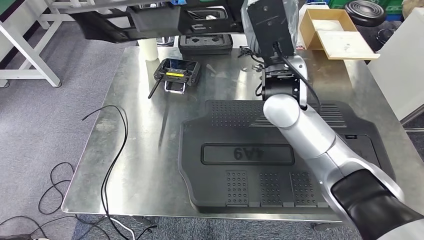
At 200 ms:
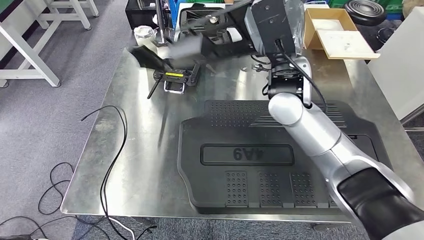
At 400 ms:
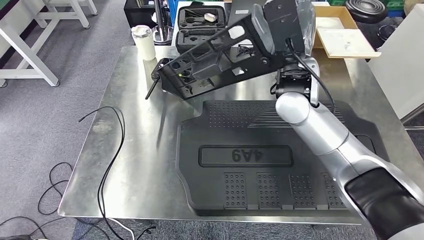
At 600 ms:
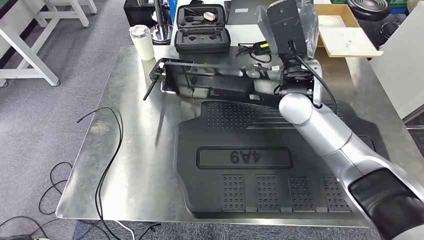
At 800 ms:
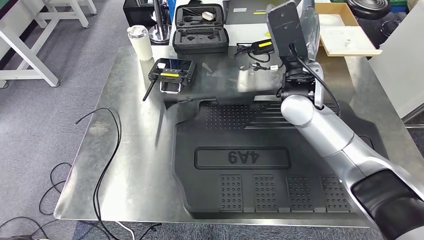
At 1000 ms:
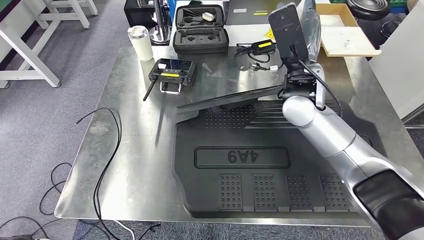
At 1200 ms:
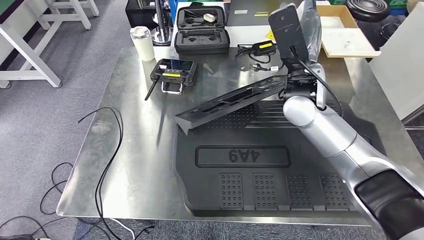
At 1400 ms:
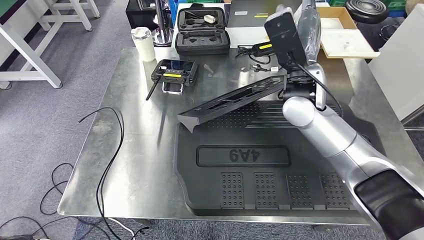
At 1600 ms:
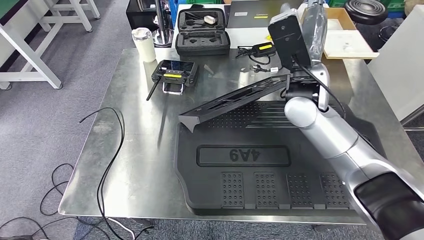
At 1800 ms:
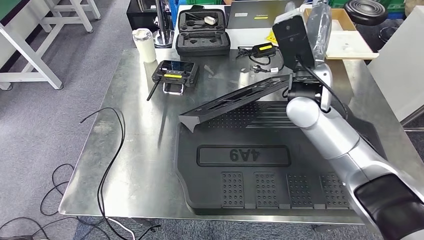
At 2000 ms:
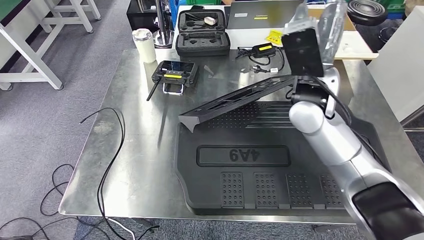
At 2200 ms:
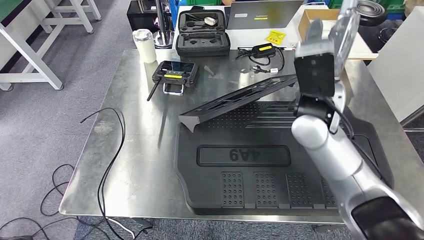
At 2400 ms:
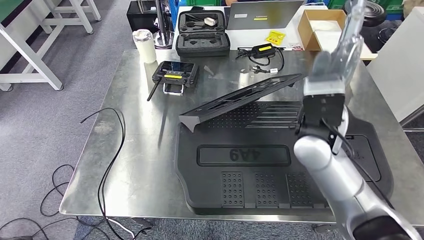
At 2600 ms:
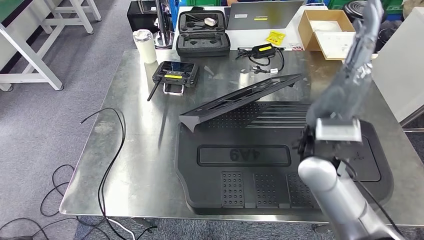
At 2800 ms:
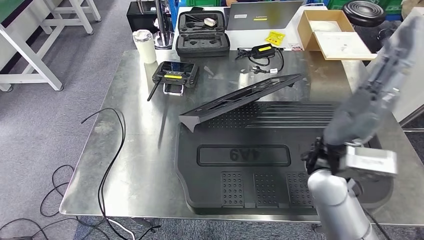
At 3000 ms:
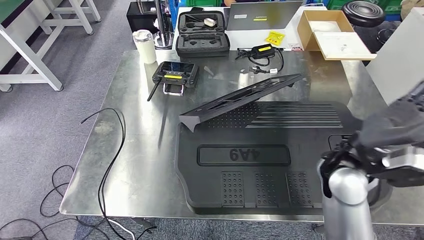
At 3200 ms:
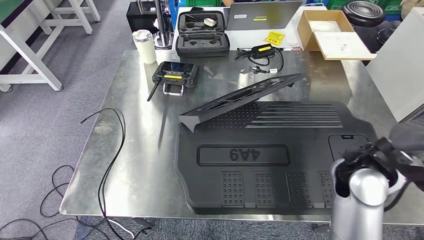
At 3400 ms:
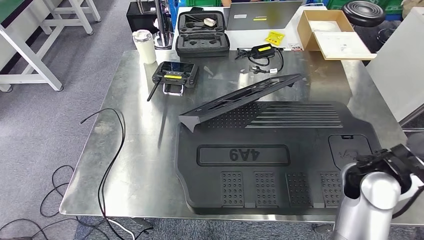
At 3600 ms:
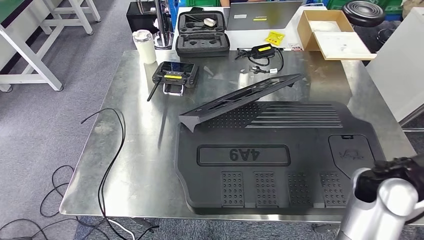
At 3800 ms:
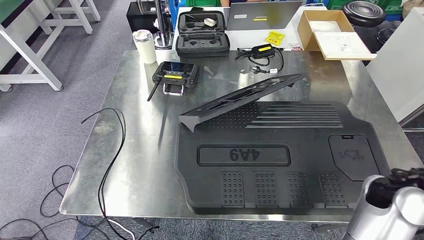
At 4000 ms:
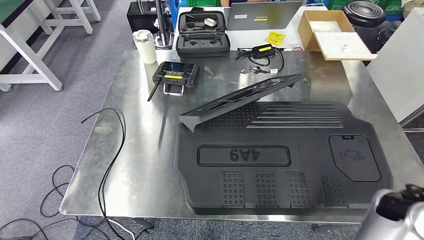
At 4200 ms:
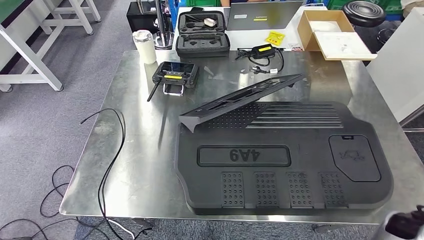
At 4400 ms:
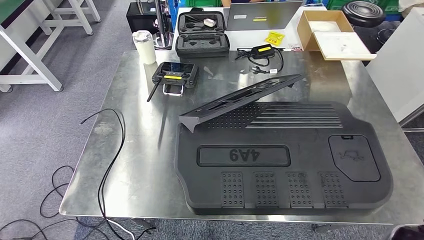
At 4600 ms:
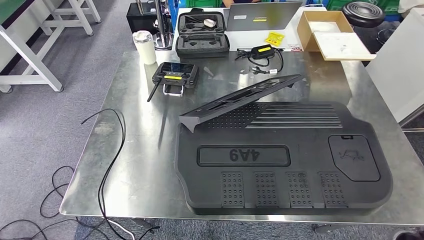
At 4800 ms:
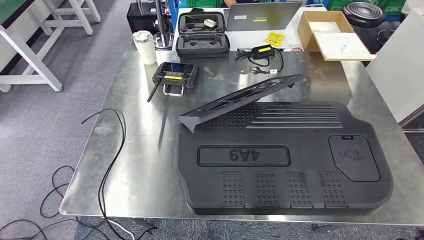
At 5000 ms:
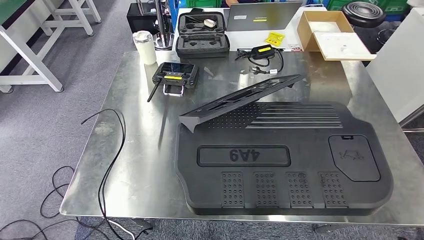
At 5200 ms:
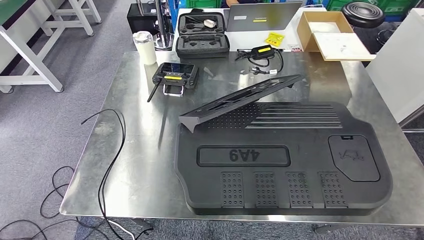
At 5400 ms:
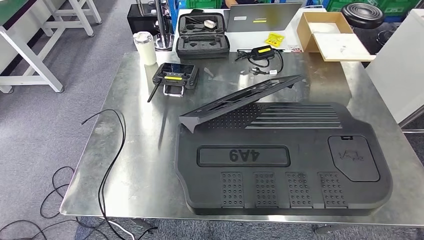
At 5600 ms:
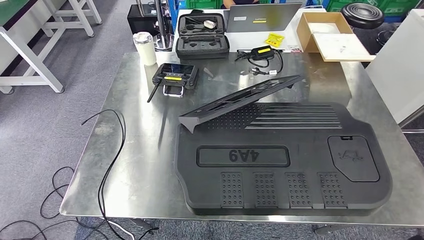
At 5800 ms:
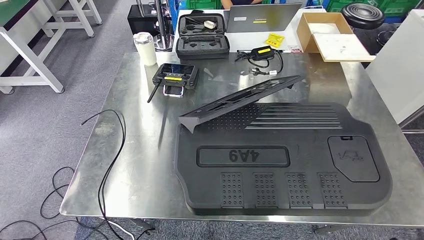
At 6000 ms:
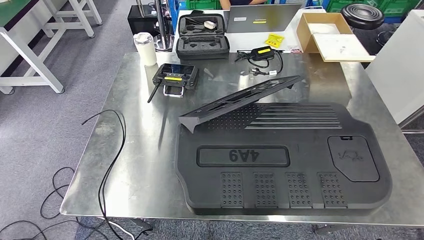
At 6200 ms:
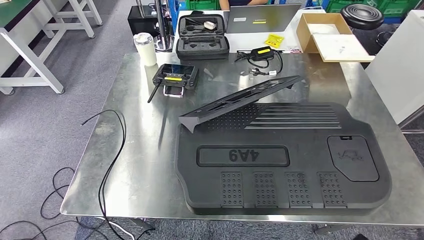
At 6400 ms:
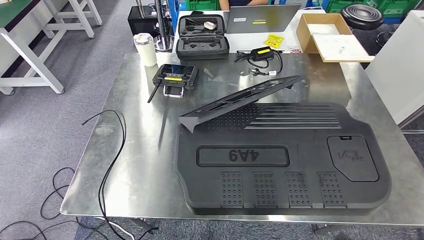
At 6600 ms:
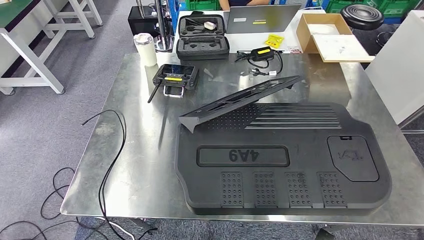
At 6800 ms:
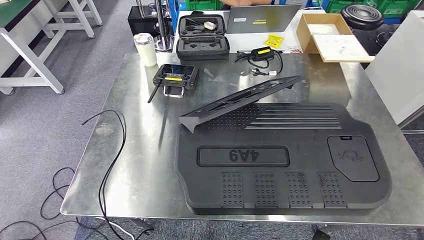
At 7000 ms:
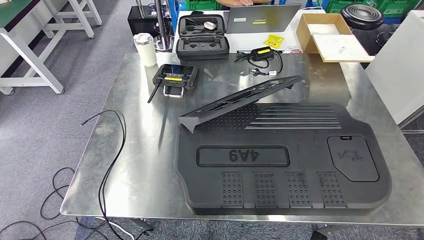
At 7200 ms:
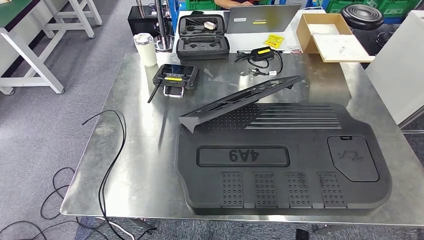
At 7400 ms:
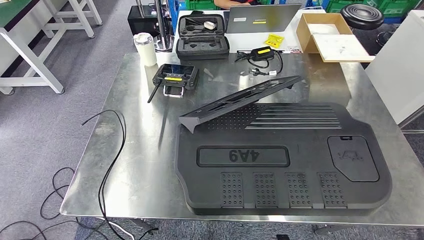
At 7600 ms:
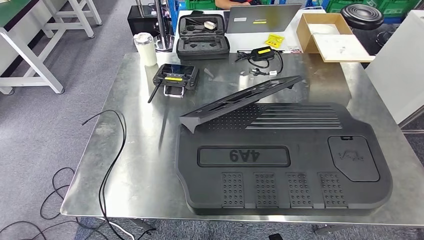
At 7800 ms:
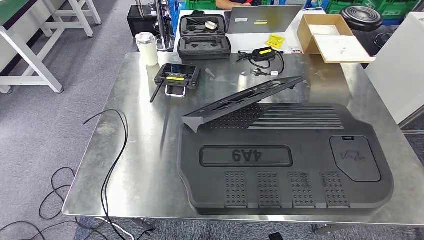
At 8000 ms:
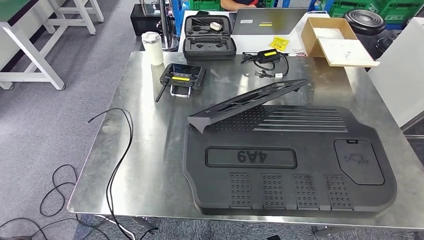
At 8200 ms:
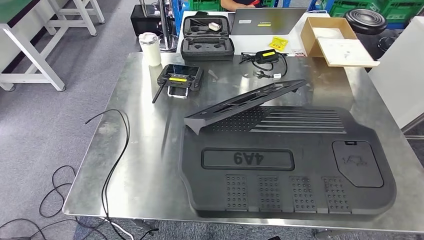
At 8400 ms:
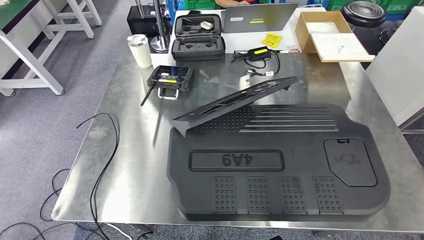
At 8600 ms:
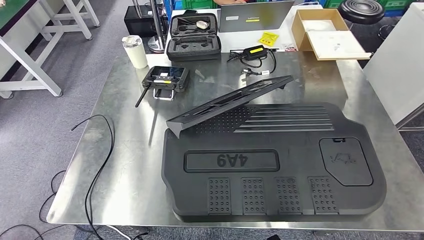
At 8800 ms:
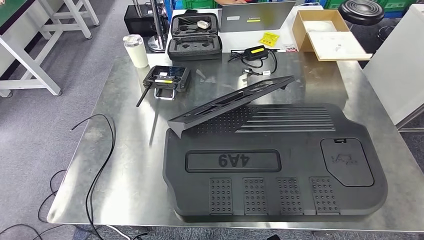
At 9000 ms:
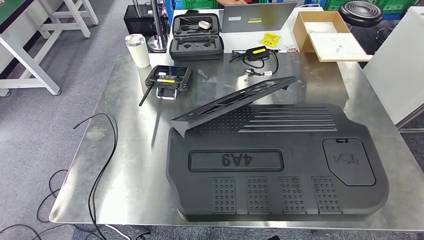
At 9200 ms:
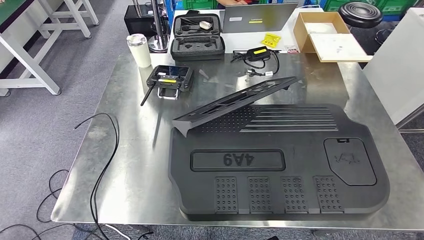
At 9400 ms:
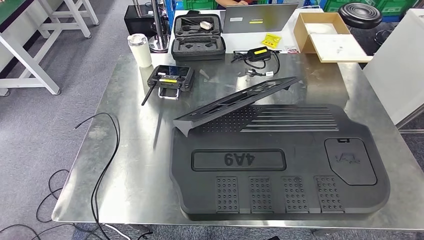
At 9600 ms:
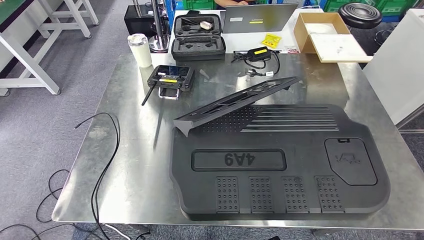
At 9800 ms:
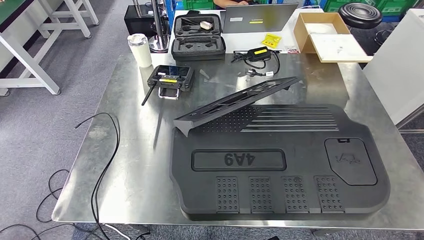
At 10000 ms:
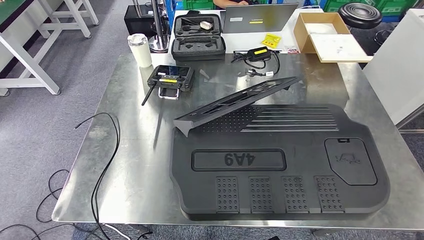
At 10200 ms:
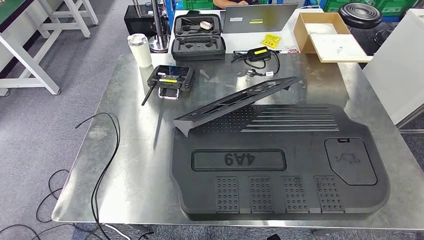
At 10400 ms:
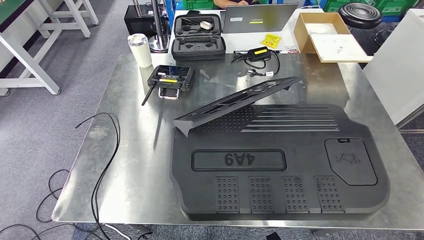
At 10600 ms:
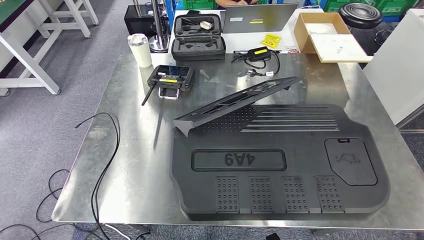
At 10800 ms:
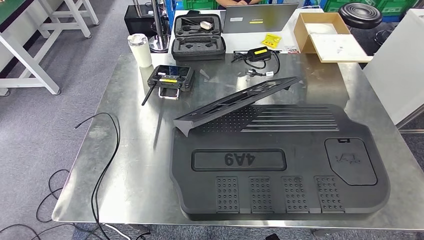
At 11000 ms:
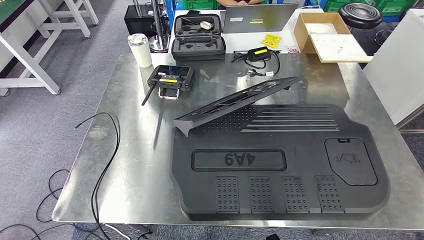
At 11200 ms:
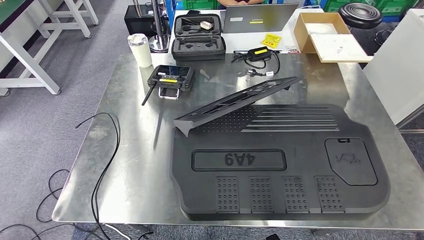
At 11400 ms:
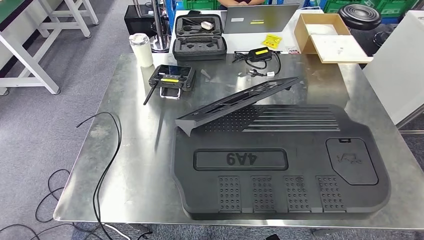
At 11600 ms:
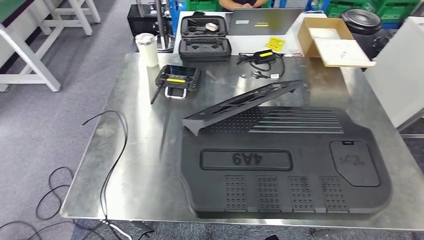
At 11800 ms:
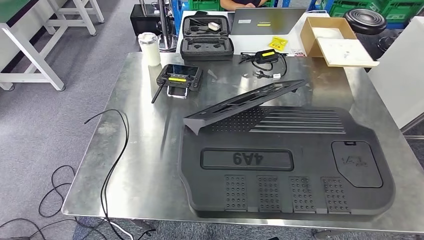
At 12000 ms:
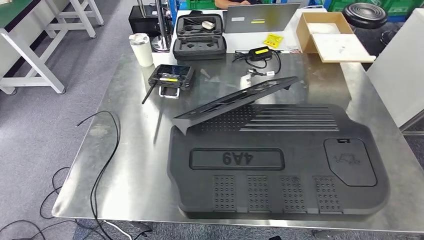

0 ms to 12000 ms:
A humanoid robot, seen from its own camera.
3000 ms to 4400 ms: The right hand is displaced to the right, backward and downward by about 25 cm.
4400 ms to 6000 ms: The right hand is displaced downward and to the left by some 25 cm.
6000 ms to 7600 ms: The right hand travels to the left and downward by about 10 cm.
9000 ms to 12000 ms: The hands move only a little.

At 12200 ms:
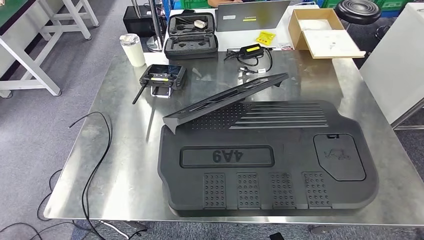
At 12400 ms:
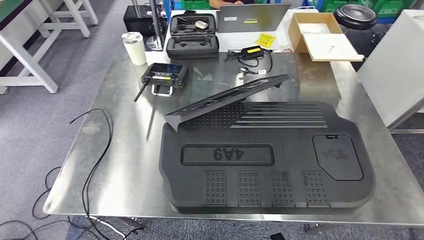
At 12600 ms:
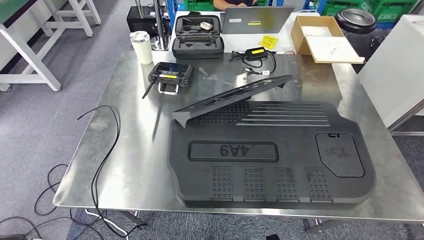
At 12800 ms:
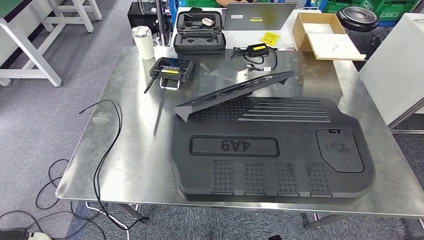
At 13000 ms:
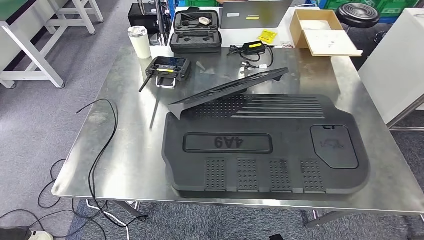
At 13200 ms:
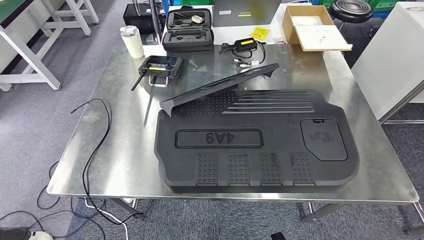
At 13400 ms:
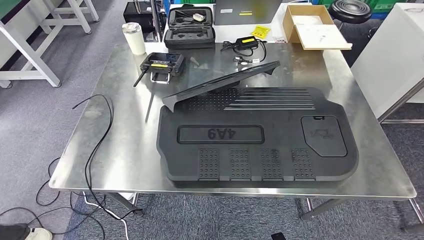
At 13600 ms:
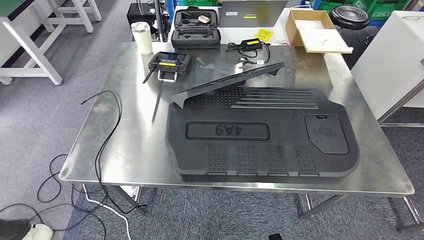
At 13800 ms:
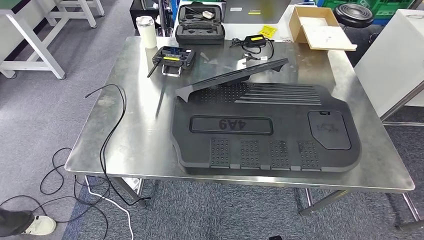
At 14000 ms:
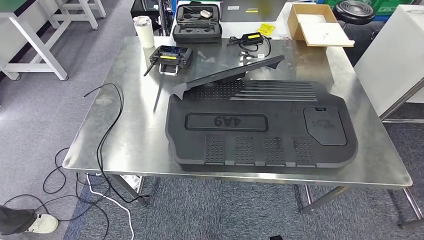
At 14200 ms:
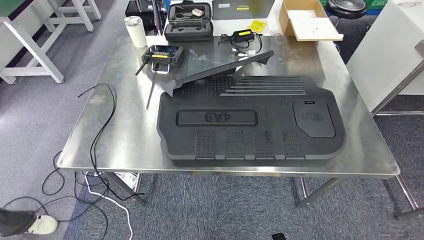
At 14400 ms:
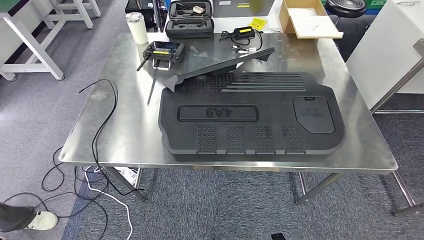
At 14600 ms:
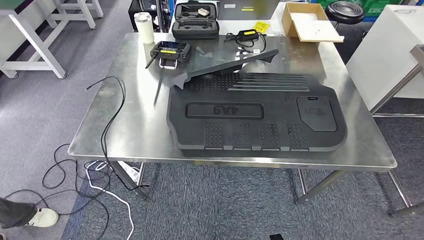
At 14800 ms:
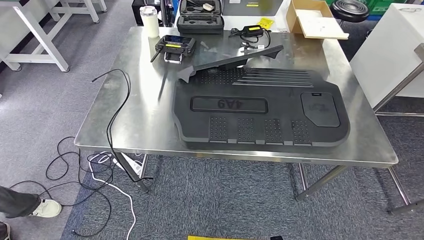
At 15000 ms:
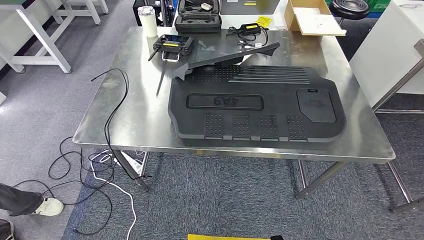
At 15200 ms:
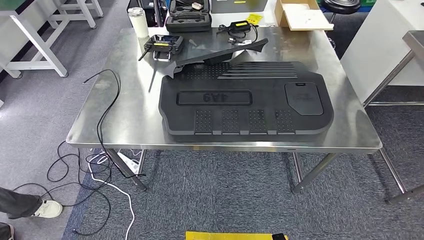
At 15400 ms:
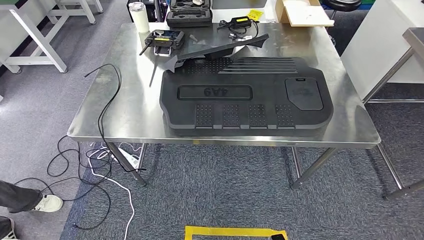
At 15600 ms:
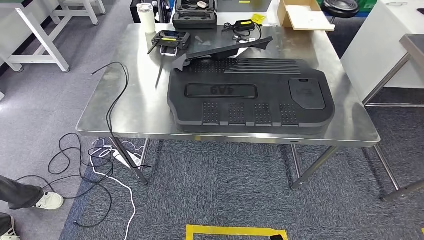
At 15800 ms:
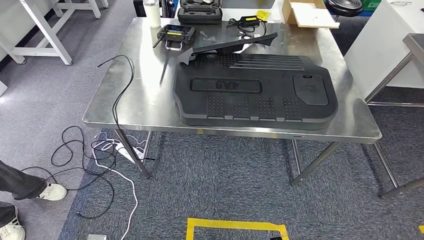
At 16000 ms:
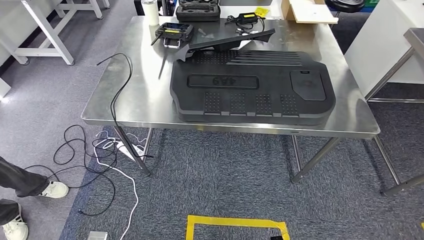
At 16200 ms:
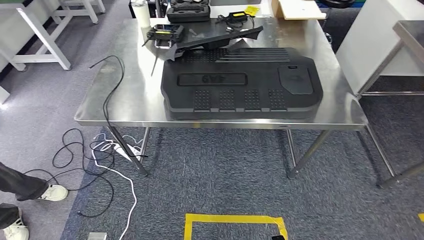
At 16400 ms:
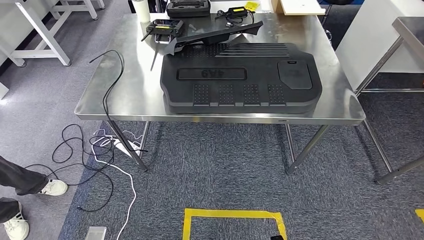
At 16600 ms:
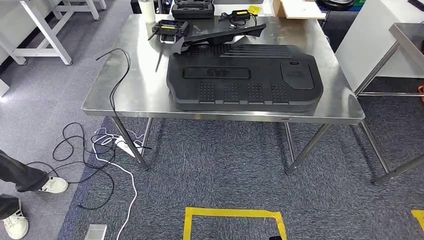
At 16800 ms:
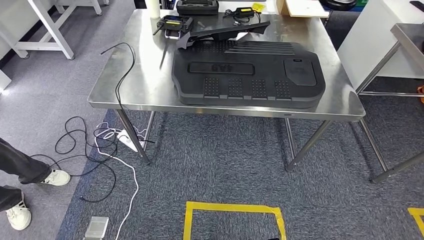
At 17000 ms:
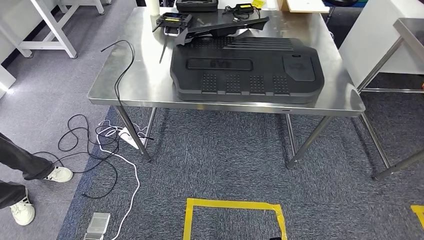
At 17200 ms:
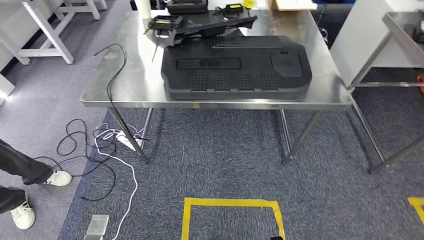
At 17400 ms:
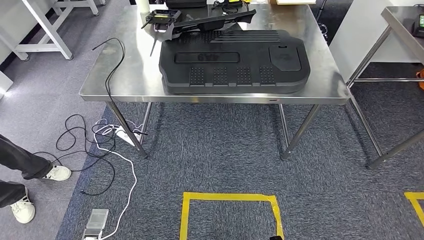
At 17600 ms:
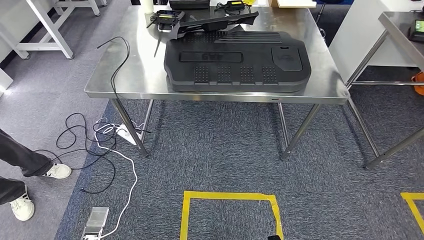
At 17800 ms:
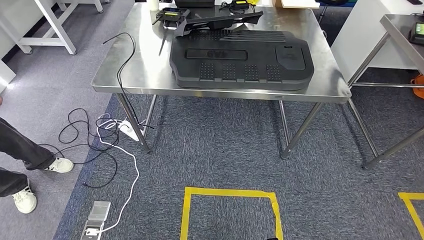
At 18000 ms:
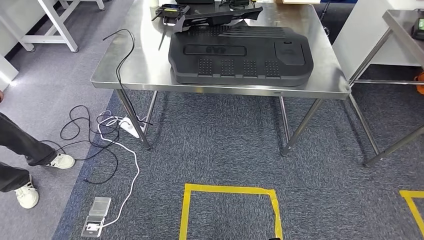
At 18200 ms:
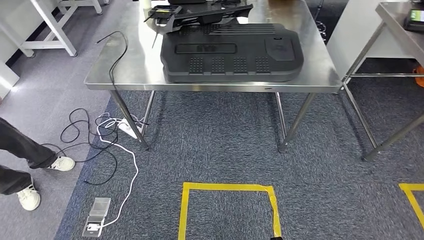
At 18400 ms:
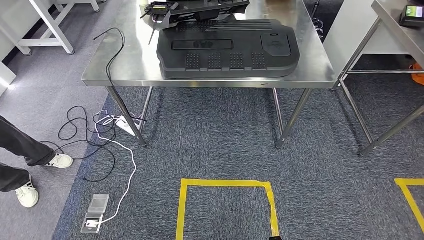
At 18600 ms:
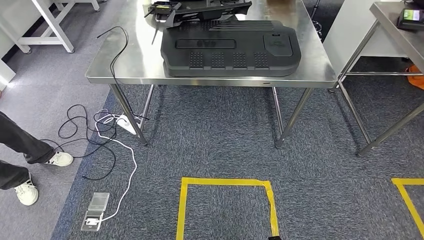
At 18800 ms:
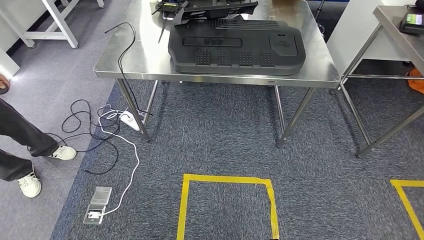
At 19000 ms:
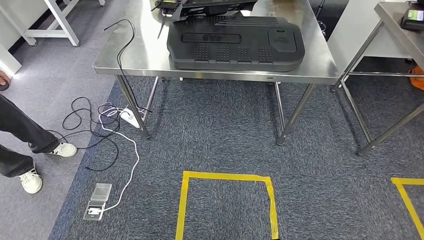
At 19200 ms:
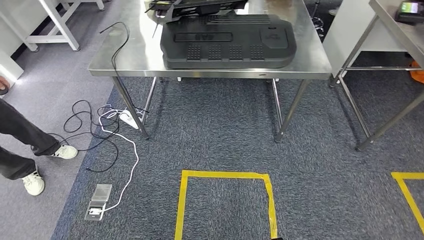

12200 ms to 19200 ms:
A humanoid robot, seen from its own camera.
Step, 12200 ms to 15400 ms: Insert the large material into the corresponding slot on the workbench.
